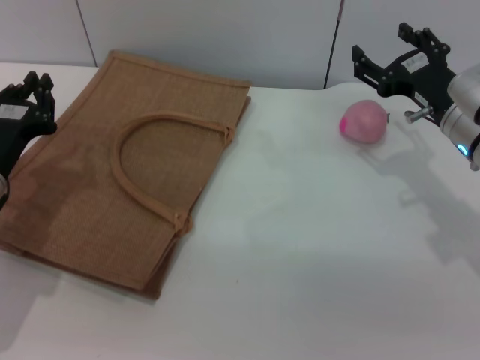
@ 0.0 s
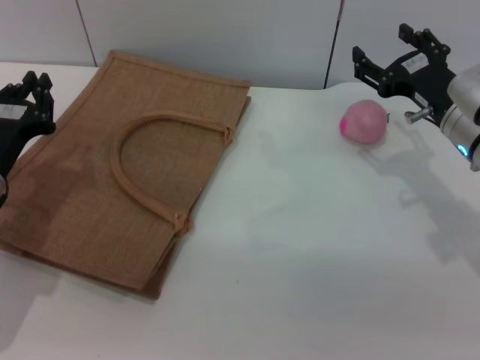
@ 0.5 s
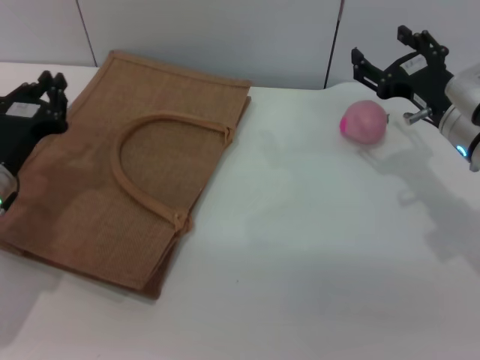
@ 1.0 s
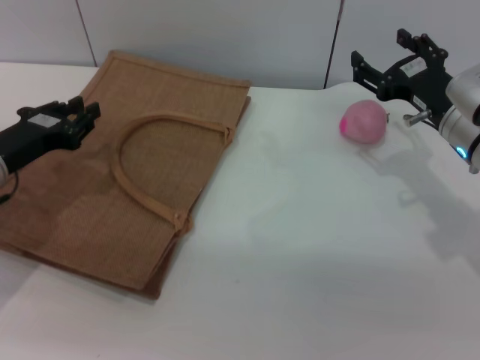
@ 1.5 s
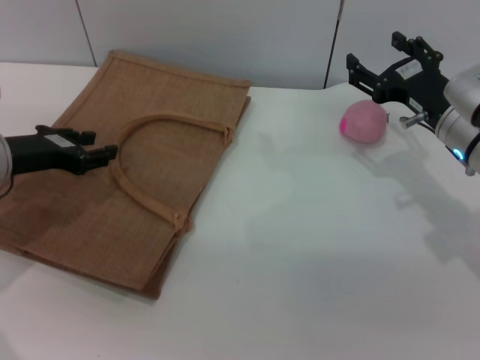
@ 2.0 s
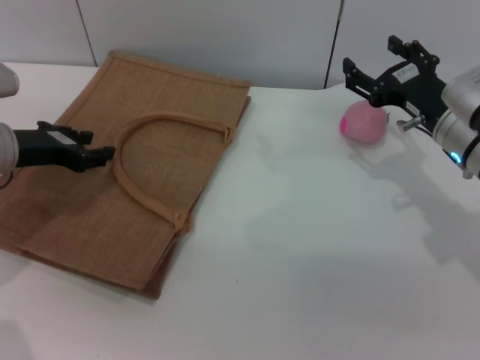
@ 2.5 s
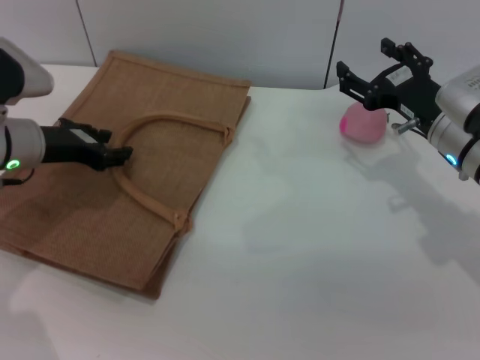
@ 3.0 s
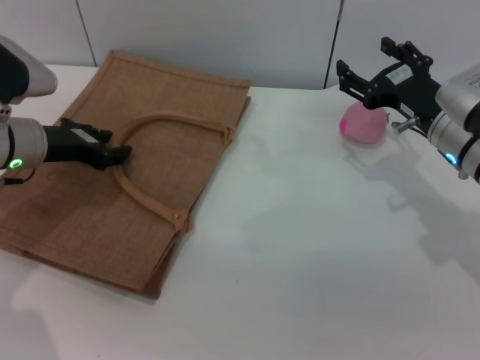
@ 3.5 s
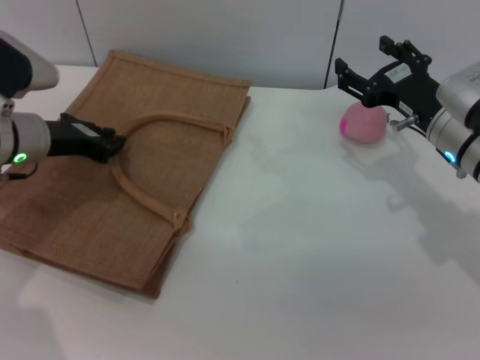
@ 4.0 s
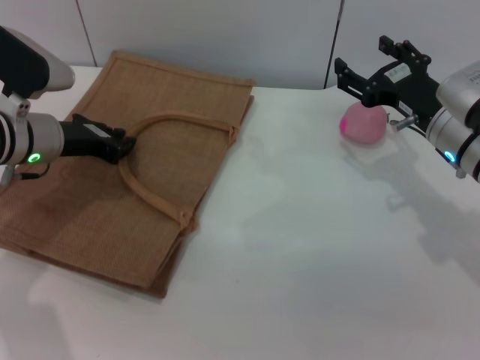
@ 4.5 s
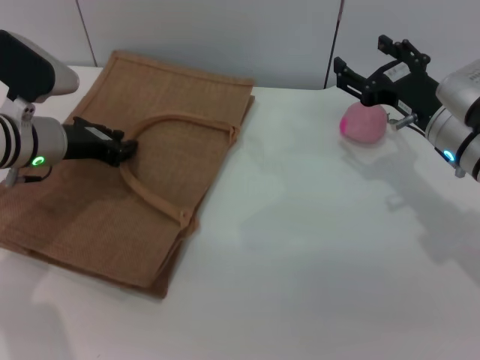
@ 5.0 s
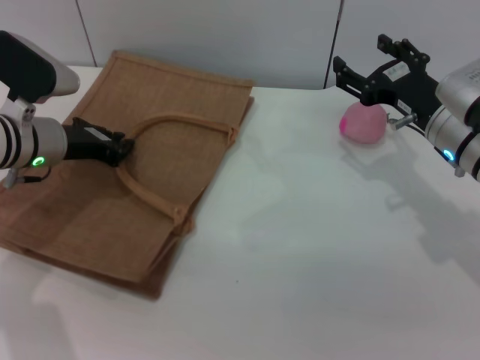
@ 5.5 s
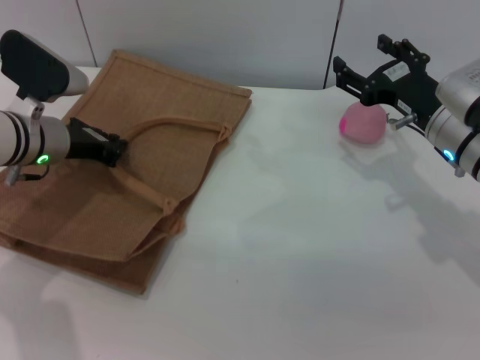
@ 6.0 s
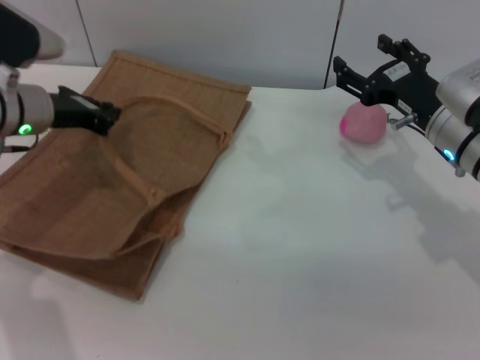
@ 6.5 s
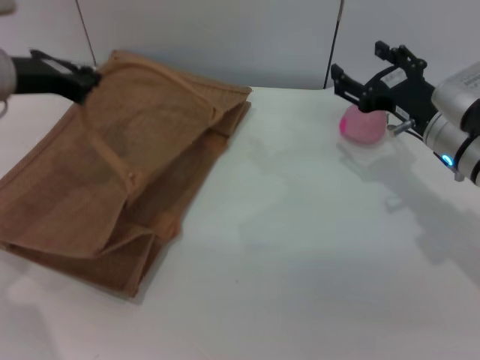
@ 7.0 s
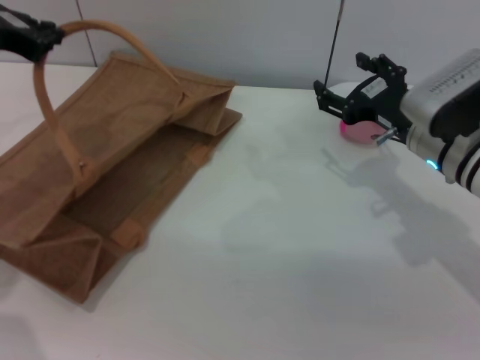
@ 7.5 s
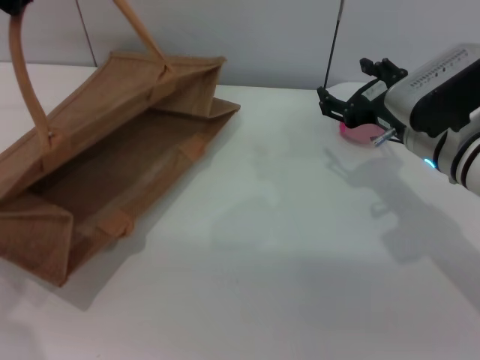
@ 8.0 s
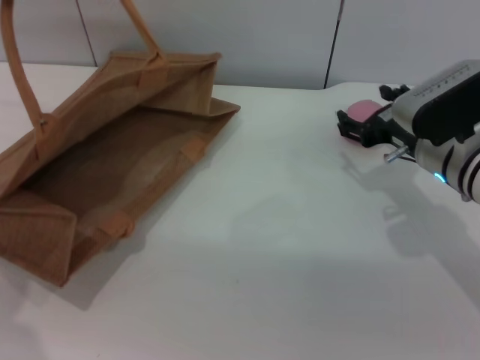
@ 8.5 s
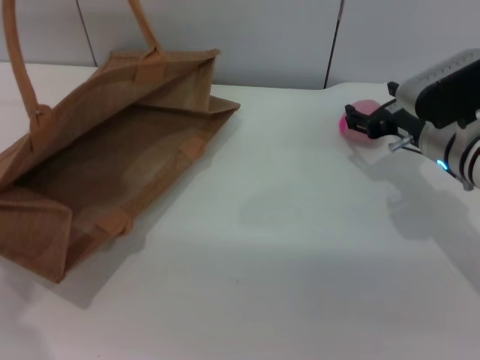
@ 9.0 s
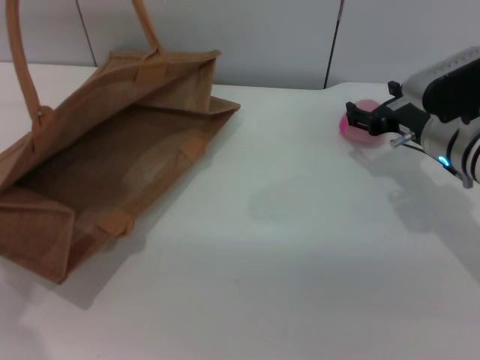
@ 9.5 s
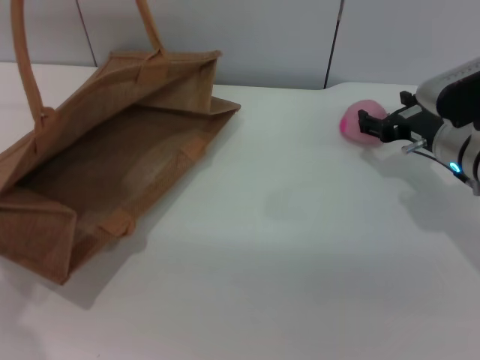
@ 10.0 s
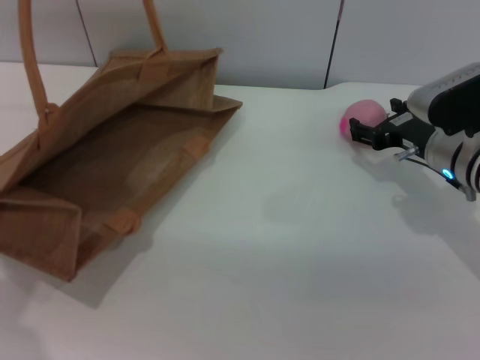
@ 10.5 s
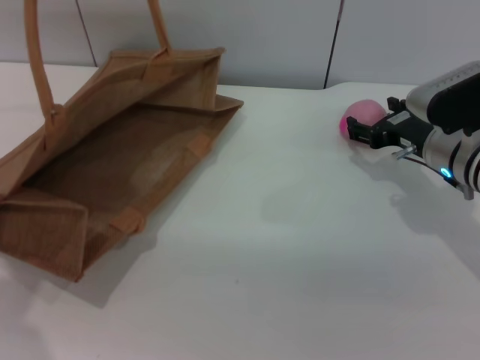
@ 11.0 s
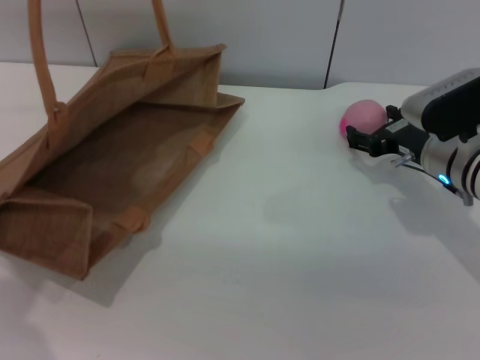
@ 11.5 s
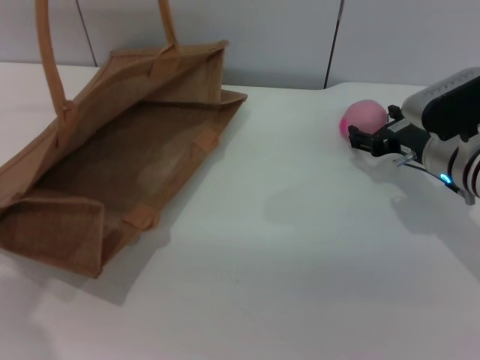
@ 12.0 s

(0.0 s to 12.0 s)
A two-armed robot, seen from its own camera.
Task of the whole recording: pick up the peach from the table and place it in the brown handbag.
Step, 0.0 s - 8.0 s: Lift the woven bag with the left gripper to open it.
0.0 s - 2.0 s: The left gripper changes place by approximately 5 cm, and opens its fingers.
2.0 s - 4.0 s: The left gripper ends up about 5 cm from where it was.
4.0 s - 6.0 s: The grippers make only small movements.
6.0 s - 8.0 s: The left gripper heads upward, covering approximately 20 cm.
8.0 s - 10.0 s: The right gripper changes place by roughly 5 cm.
10.0 s - 12.0 s: The grippers move only a little.

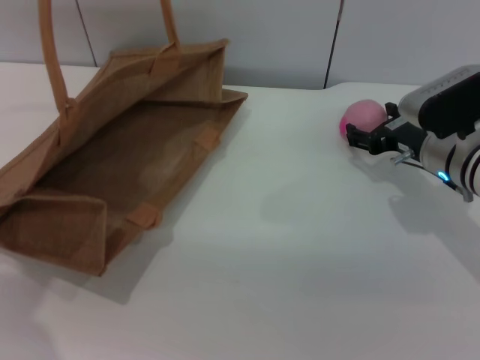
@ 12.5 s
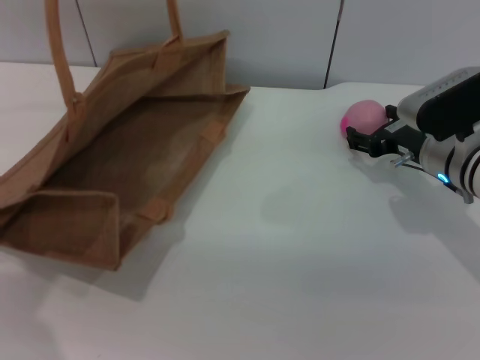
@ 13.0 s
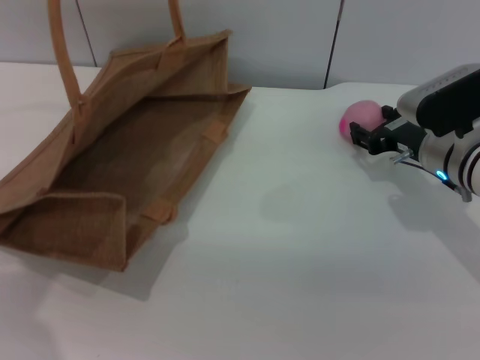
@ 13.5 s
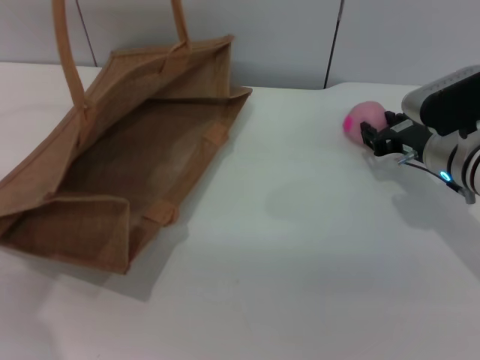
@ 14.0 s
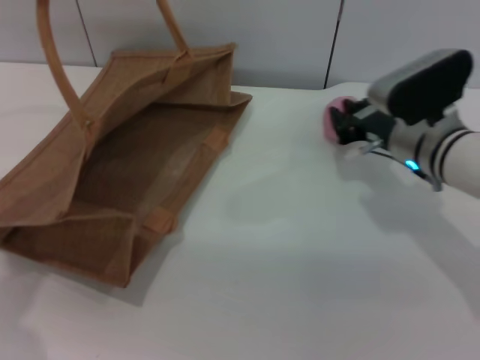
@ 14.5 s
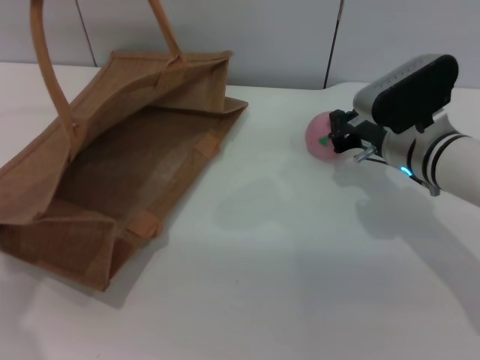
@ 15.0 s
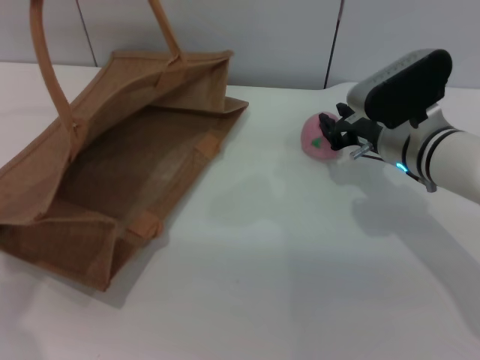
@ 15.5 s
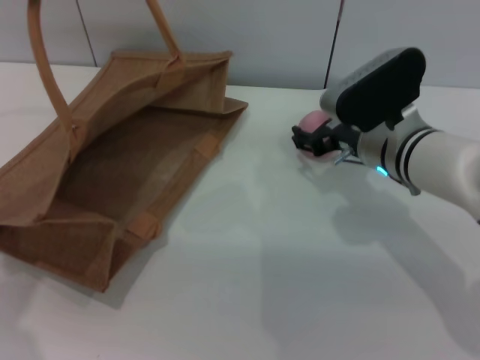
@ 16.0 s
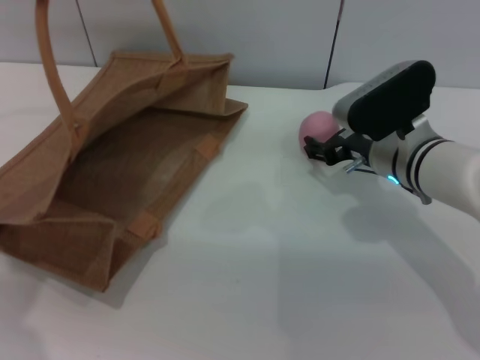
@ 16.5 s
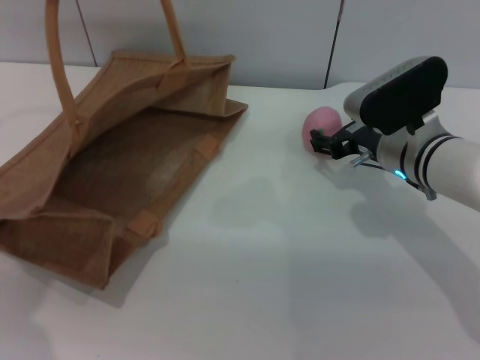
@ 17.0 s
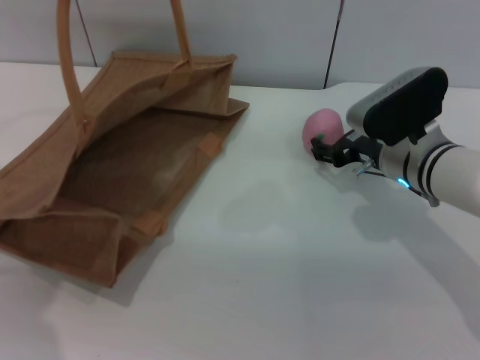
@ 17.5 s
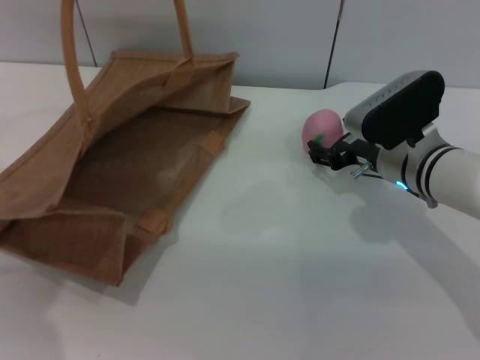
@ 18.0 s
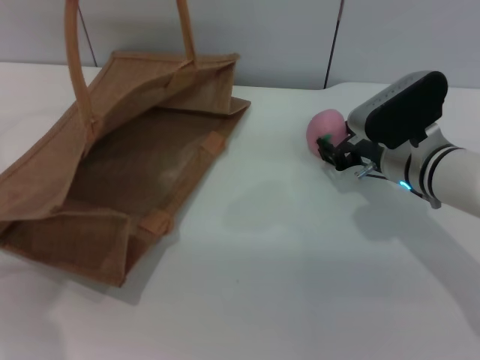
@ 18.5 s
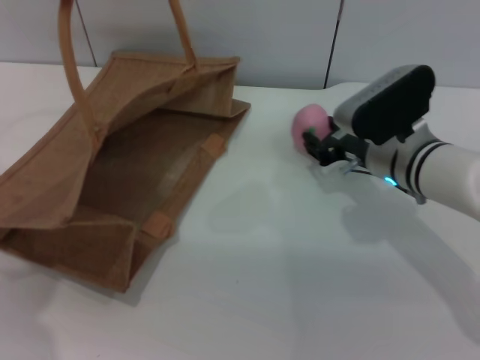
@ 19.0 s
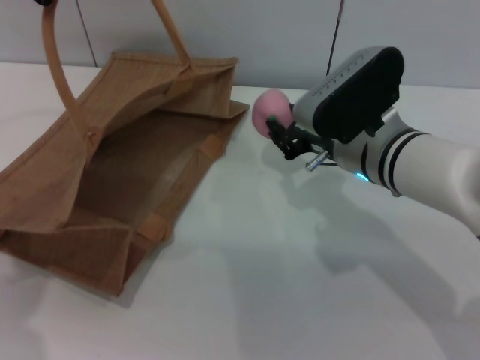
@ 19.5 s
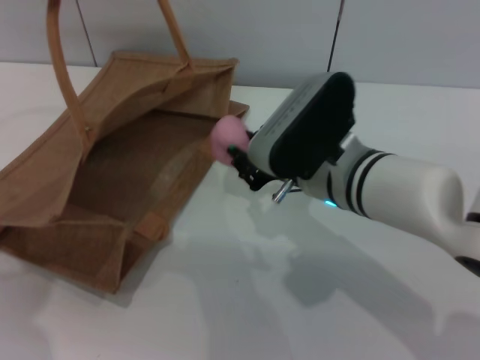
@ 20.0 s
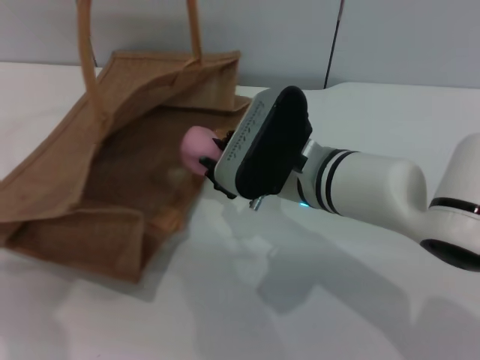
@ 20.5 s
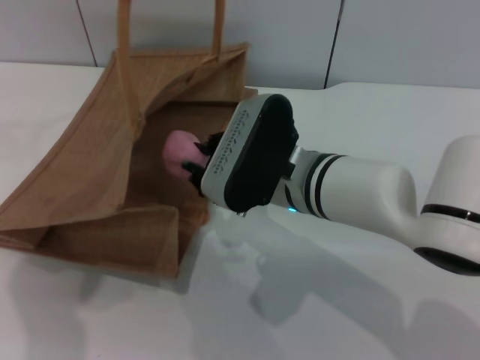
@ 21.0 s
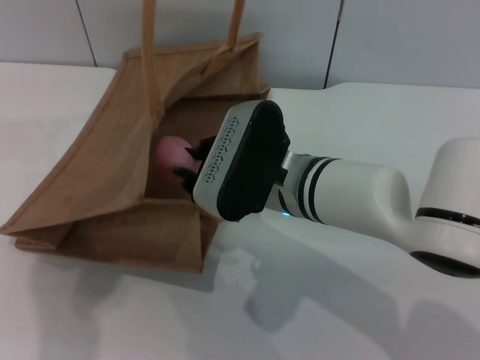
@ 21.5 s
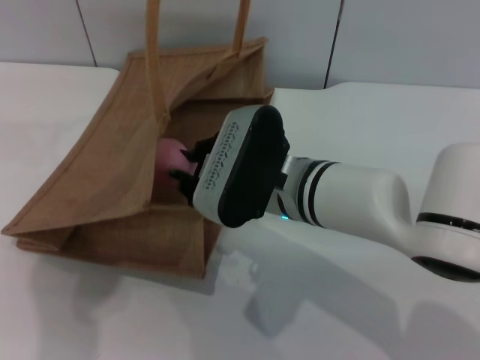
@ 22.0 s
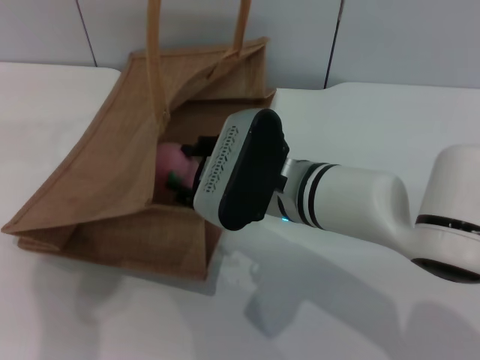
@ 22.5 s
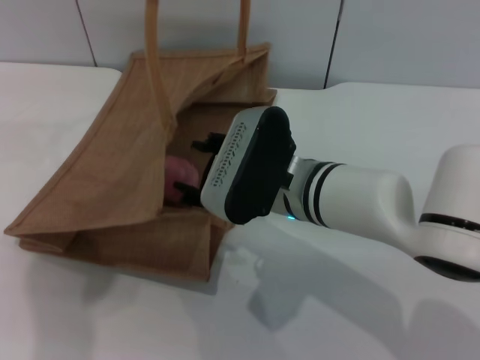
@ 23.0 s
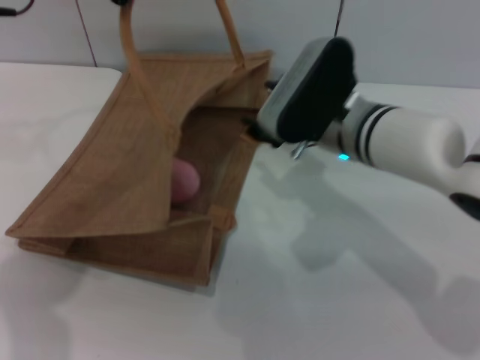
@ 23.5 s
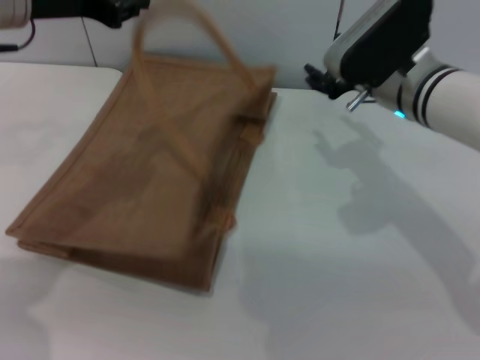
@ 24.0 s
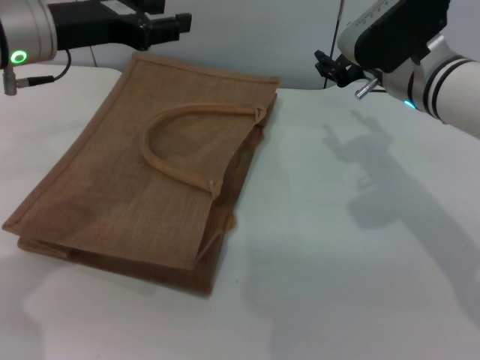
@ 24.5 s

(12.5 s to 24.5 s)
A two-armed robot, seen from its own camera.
Task of the whole recording: pick up the peach from the table and place it in the brown handbag.
Step, 12.5 s - 19.0 s: Pick up the peach with the right gripper.
Step, 19.5 s - 23.0 s: Place the peach into the woven bag with the right gripper.
Step, 23.5 s - 24.0 s: Lower the woven bag with the left gripper to close it.
12.5 s - 14.5 s: The right gripper closes up.
14.5 s - 16.5 s: The right gripper opens.
16.5 s - 18.5 s: The grippers move only a little.
18.5 s - 20.5 s: The right gripper is displaced to the left and backward by some 15 cm, and closes up.
20.5 s - 22.5 s: The left gripper travels to the right by some 5 cm.
22.5 s - 24.5 s: The right gripper travels to the right and forward by approximately 15 cm, and opens. Meanwhile the left gripper goes approximately 10 cm downward and to the left, and opens its fingers.

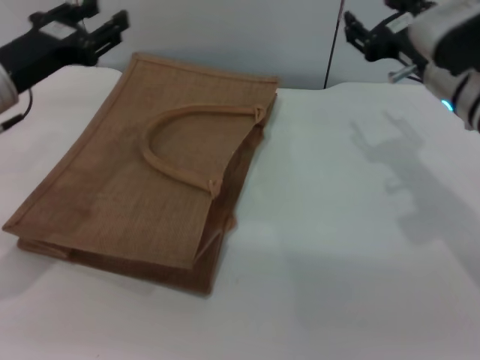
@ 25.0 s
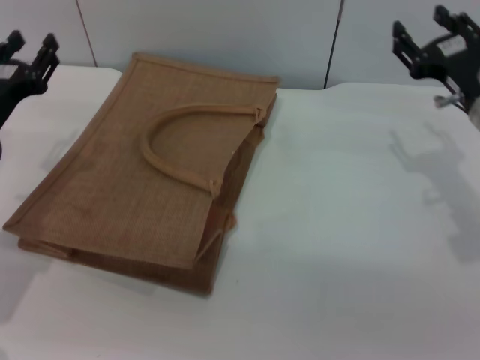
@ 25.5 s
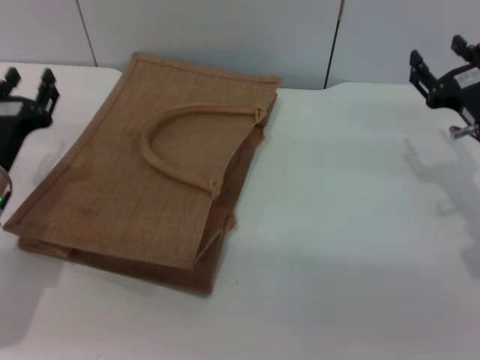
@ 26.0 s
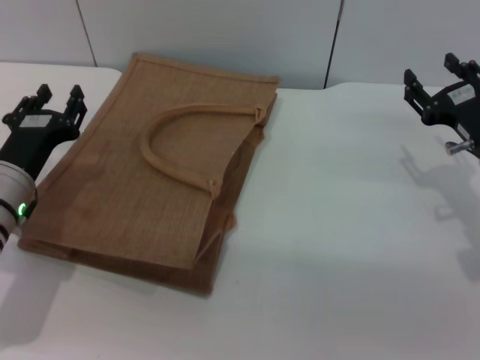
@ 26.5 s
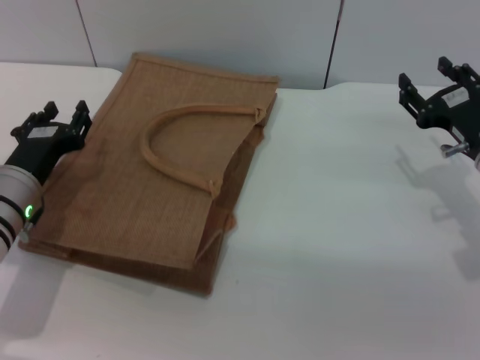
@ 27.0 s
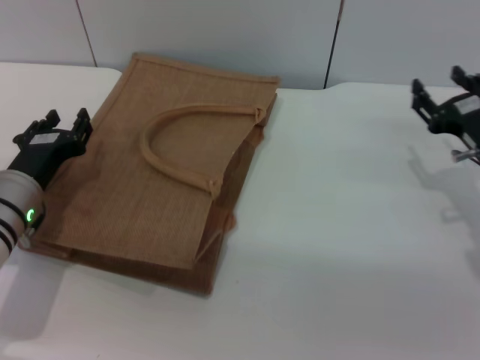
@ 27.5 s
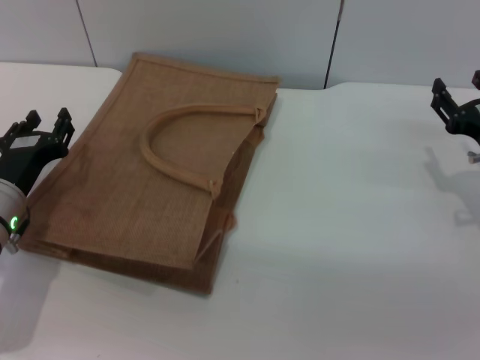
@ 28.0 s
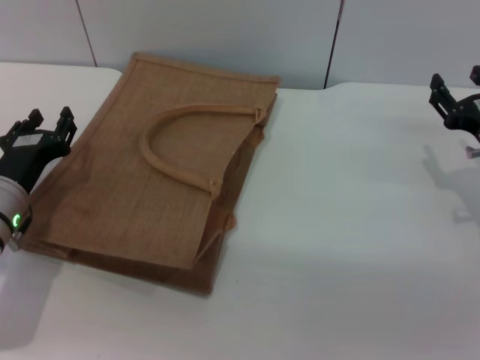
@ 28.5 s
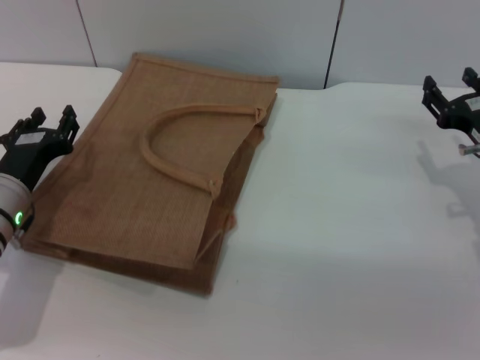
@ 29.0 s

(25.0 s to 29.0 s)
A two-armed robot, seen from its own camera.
Task of the whole recording: pick up the peach from the table and place it in the brown handbag.
25.0 s - 27.0 s: The right gripper shifts about 10 cm downward and to the right. Meanwhile the left gripper goes some 10 cm downward.
27.0 s - 29.0 s: The grippers stay close to where they were, moving slightly.
